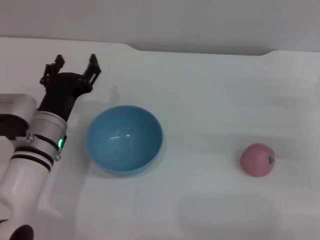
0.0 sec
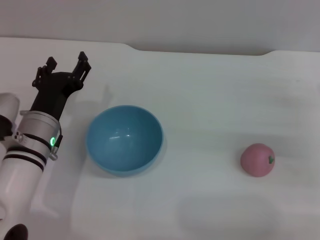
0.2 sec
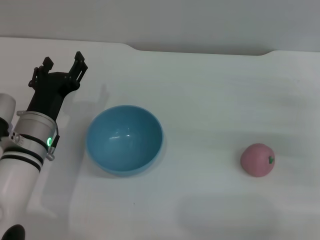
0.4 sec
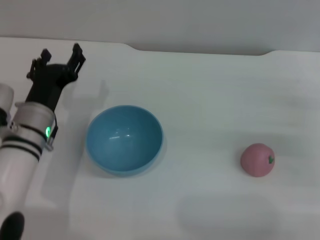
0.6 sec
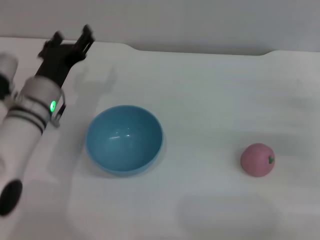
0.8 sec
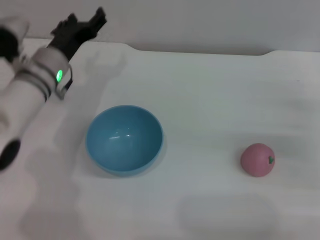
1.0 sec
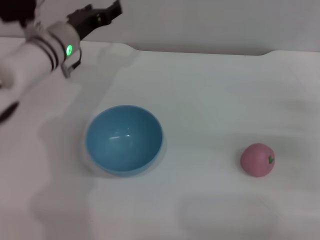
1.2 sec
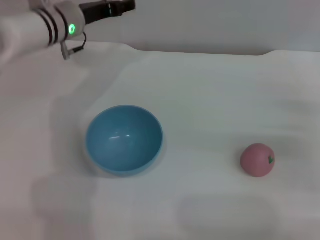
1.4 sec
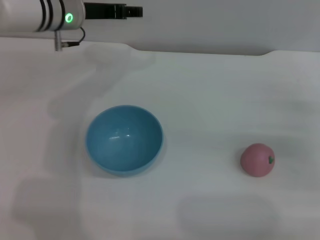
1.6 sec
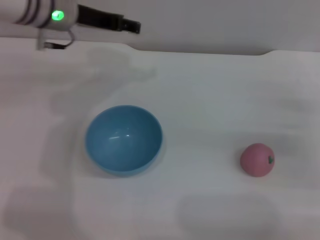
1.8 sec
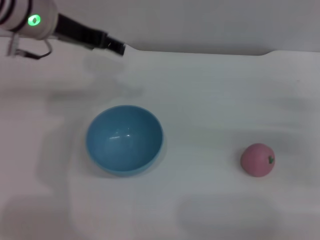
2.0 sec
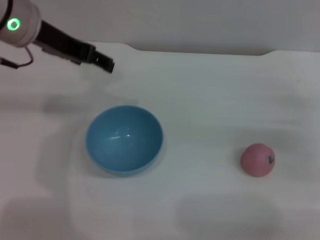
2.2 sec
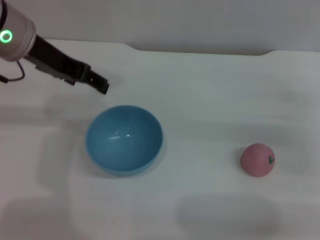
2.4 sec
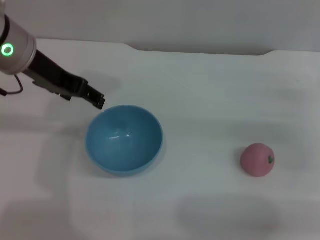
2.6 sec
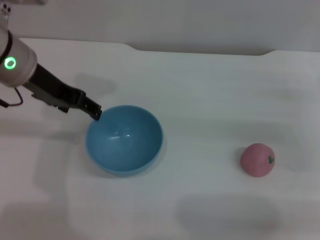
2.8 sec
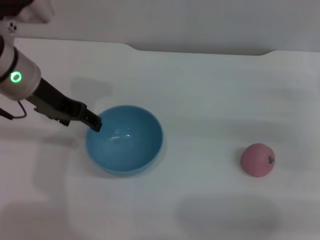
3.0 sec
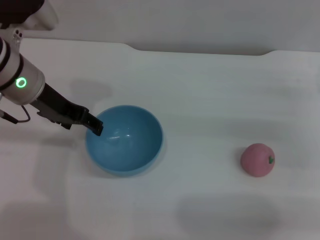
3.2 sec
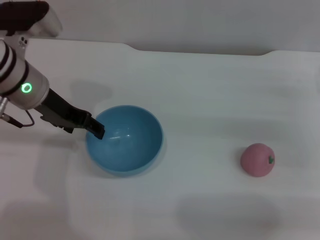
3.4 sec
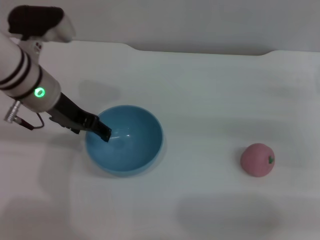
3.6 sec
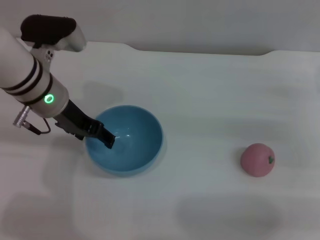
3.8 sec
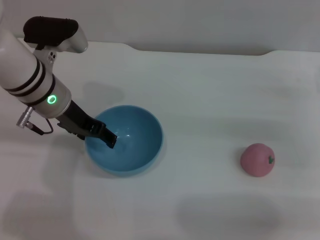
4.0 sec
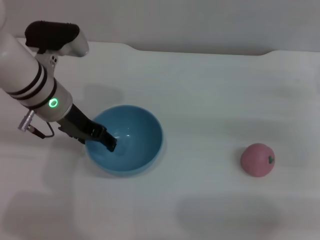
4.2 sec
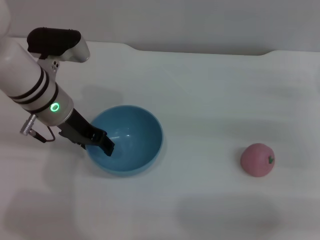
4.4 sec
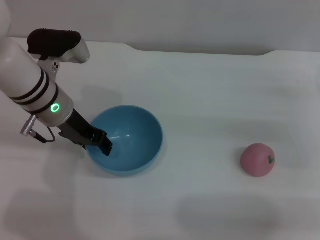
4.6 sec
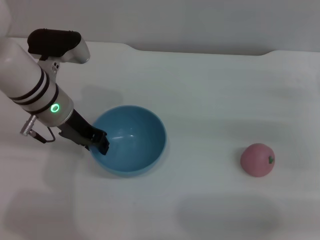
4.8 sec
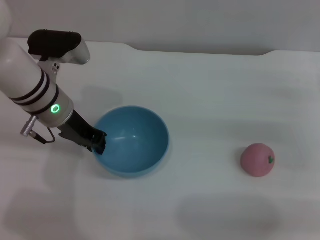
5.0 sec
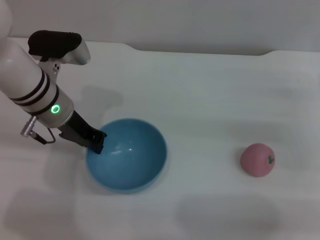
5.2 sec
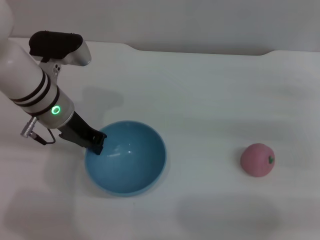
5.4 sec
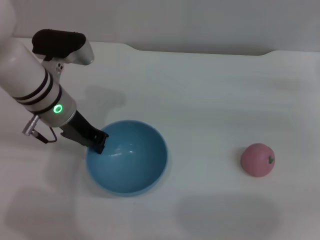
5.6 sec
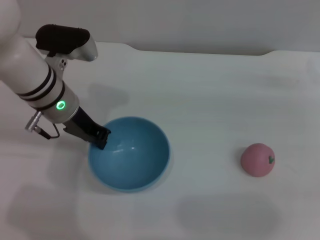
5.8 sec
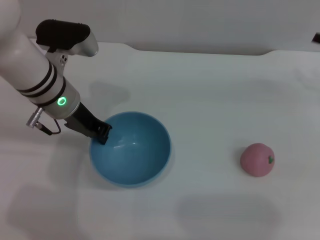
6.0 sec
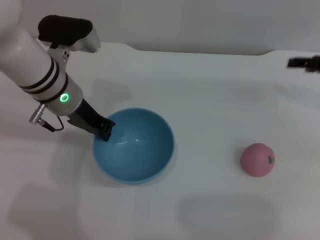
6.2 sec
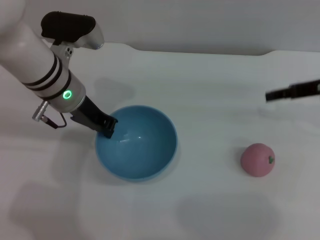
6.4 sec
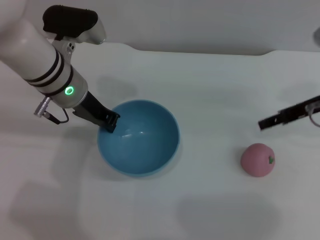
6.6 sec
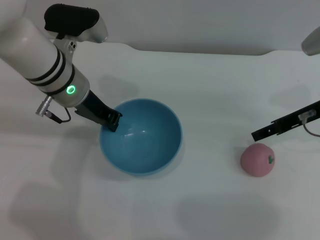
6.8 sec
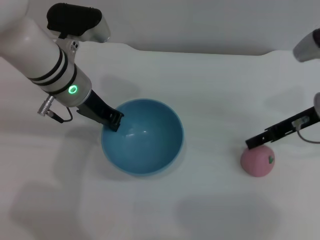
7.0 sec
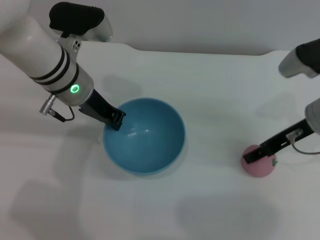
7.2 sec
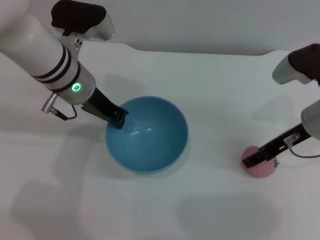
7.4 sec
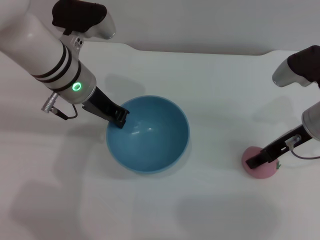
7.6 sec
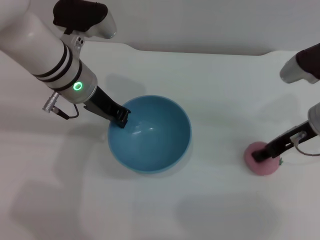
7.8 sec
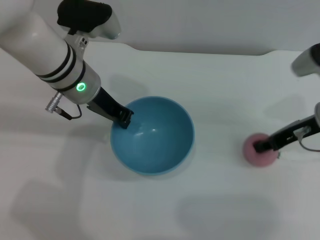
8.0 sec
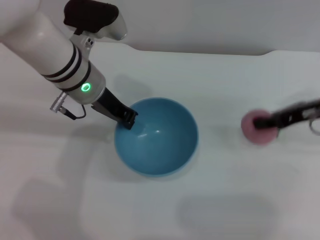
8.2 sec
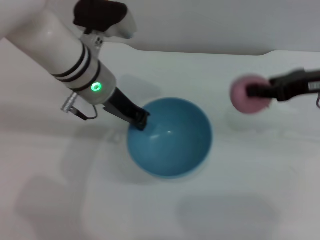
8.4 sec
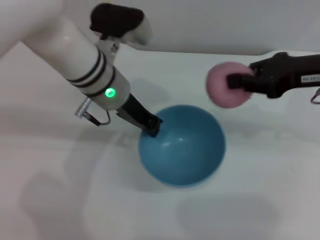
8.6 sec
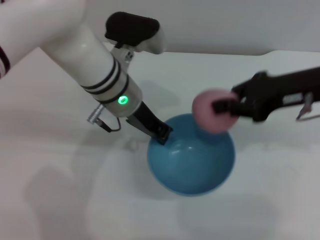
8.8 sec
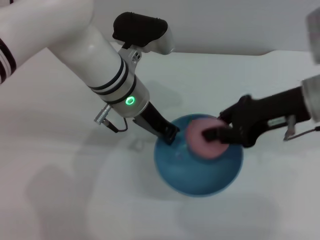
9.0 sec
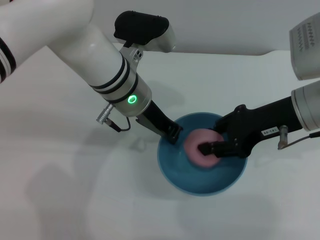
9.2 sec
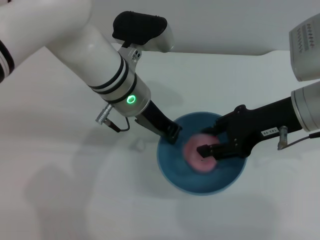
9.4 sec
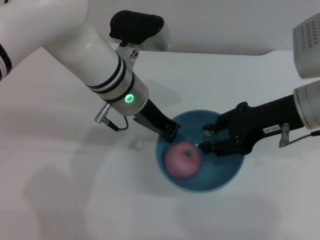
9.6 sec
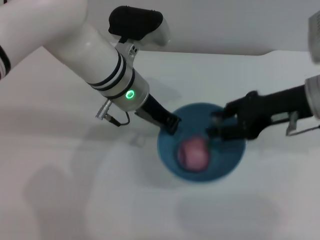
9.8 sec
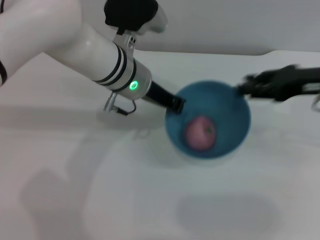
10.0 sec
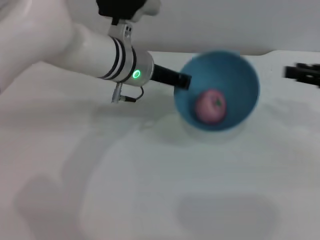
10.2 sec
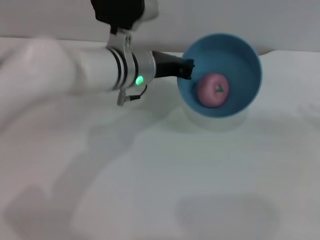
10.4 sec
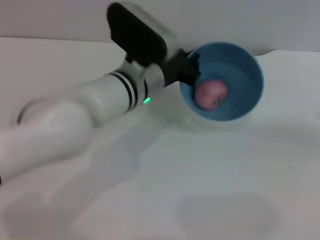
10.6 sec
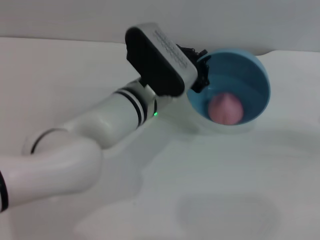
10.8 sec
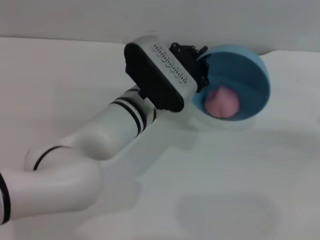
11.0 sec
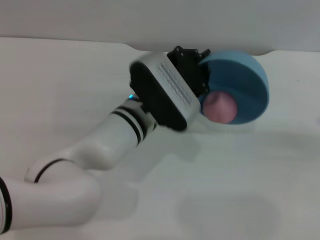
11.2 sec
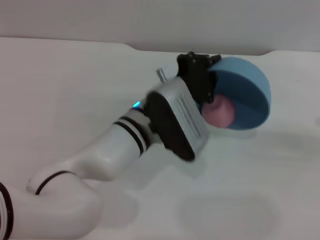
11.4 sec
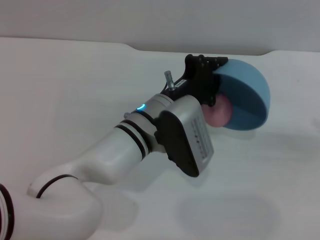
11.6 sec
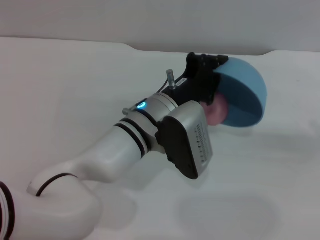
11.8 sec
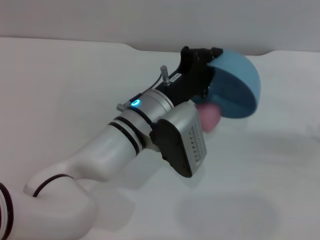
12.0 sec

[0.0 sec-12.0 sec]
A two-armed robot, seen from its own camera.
Task of the whole recording: put the peach into the blue bowl and pour it out repeatedly.
Step, 0.0 sec to 6.6 sec: Pick up the bowl with the left gripper.
Step, 7.0 sec to 8.2 sec: Pick up the peach with the right gripper.
Step, 8.4 sec to 9.6 sec: Place the peach into the bowl.
0.0 sec to 1.6 sec: The left gripper goes roughly 20 cm forward and upward.
1.6 sec to 3.0 sec: The left gripper shifts roughly 10 cm backward.
3.0 sec to 4.4 sec: The left gripper is displaced downward by roughly 5 cm.
4.4 sec to 6.0 sec: The left gripper closes. Meanwhile the right gripper is displaced upward by roughly 5 cm.
6.0 sec to 7.6 sec: The right gripper moves to the left, about 10 cm.
7.6 sec to 9.0 sec: The right gripper shifts approximately 5 cm upward, and closes its fingers; the left gripper is displaced to the right by about 5 cm.
9.0 sec to 10.4 sec: The right gripper travels to the right by about 15 cm, and opens its fingers.
10.4 sec to 12.0 sec: The left gripper goes roughly 10 cm backward; the right gripper changes place by about 5 cm.

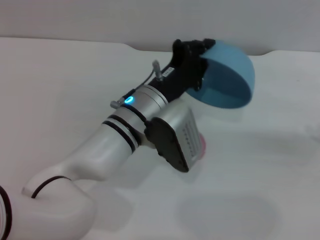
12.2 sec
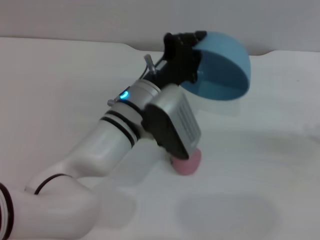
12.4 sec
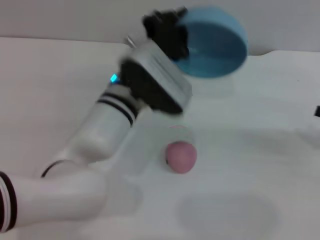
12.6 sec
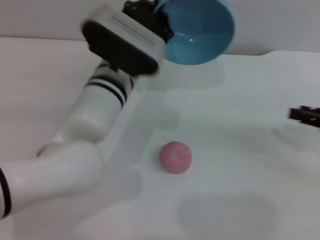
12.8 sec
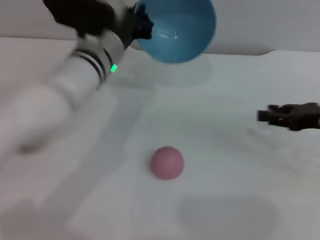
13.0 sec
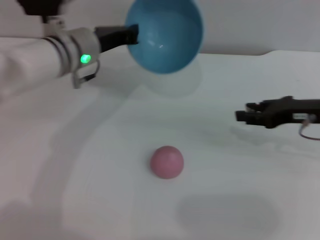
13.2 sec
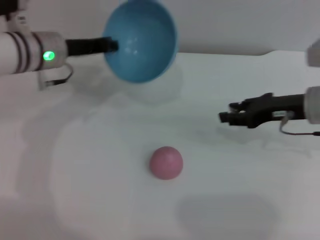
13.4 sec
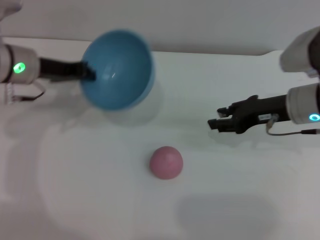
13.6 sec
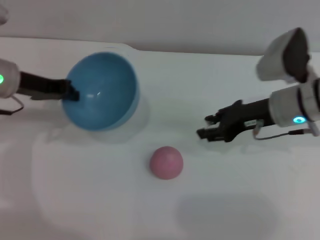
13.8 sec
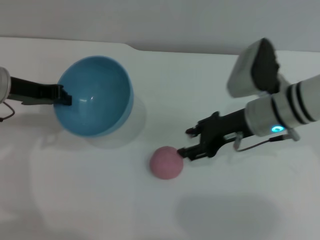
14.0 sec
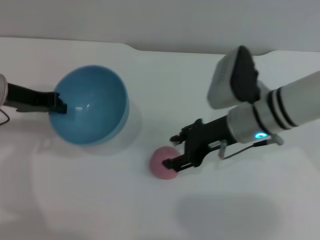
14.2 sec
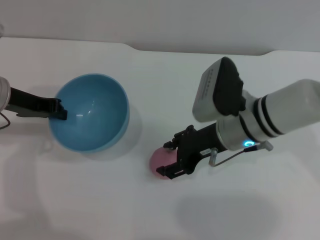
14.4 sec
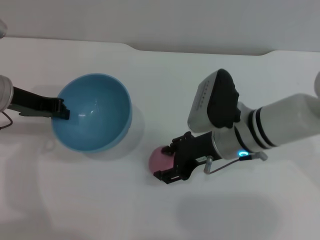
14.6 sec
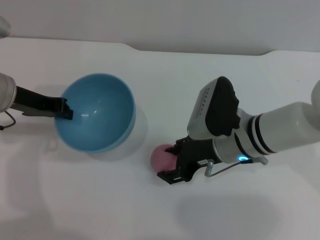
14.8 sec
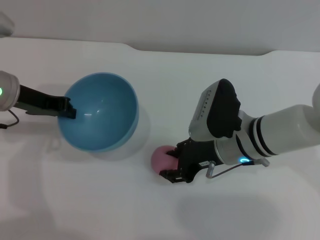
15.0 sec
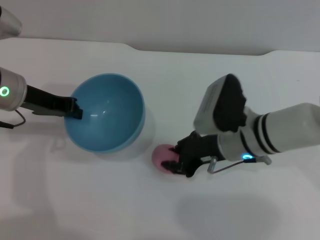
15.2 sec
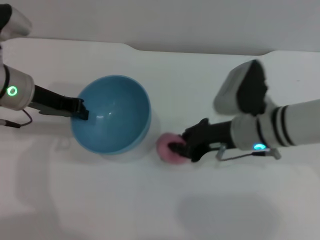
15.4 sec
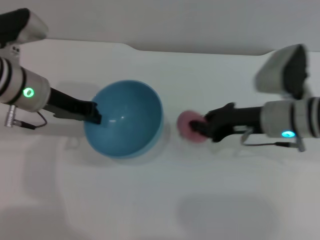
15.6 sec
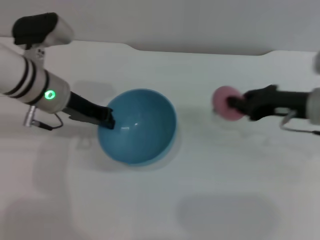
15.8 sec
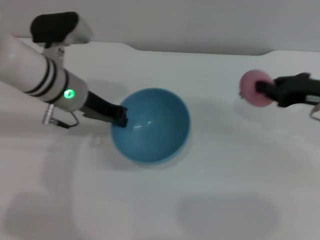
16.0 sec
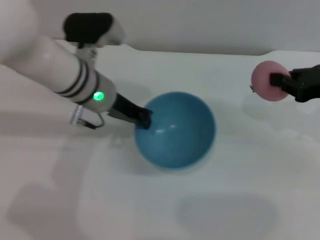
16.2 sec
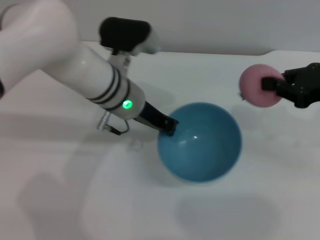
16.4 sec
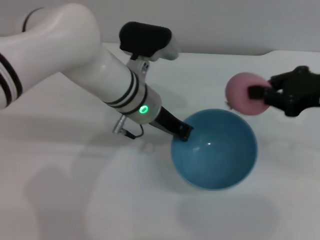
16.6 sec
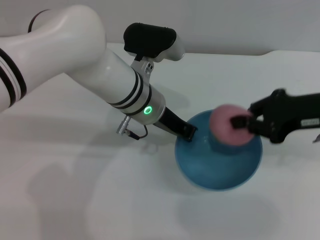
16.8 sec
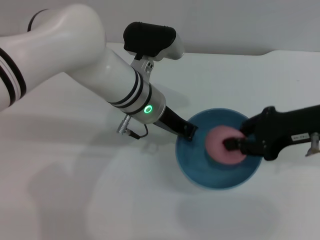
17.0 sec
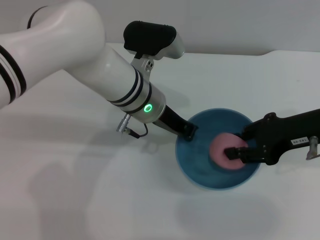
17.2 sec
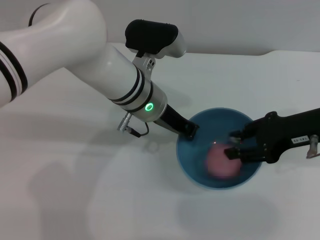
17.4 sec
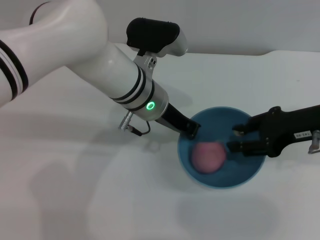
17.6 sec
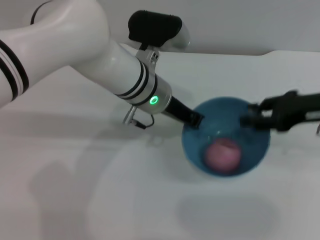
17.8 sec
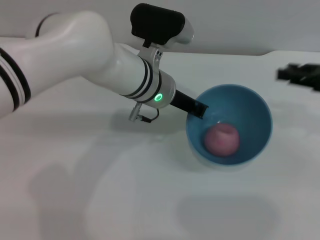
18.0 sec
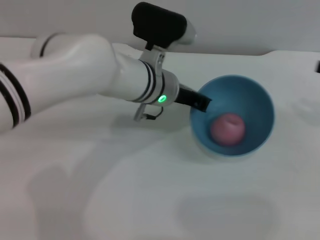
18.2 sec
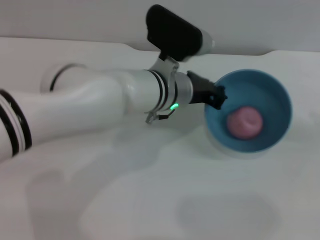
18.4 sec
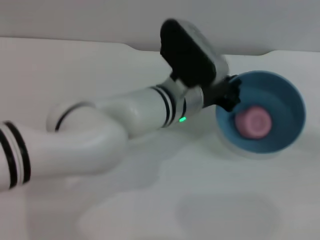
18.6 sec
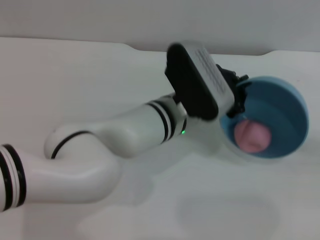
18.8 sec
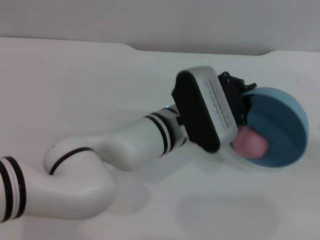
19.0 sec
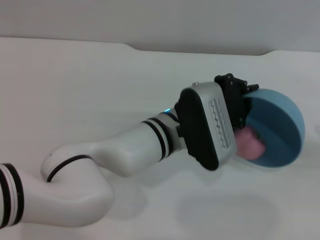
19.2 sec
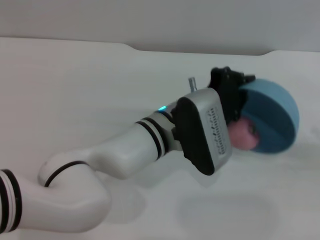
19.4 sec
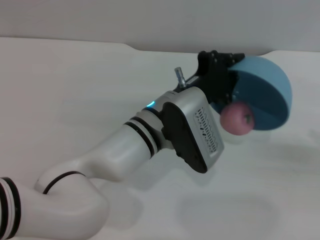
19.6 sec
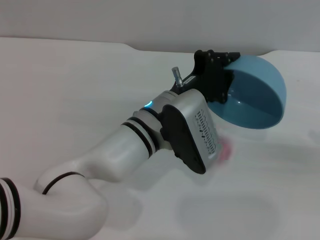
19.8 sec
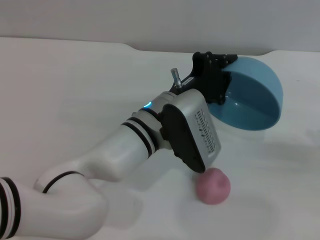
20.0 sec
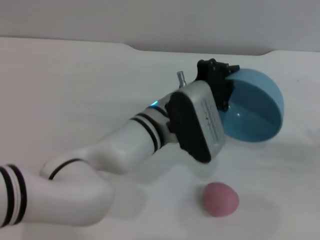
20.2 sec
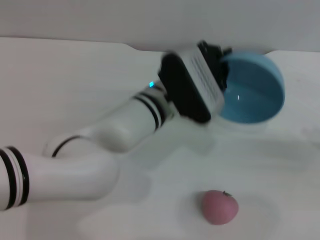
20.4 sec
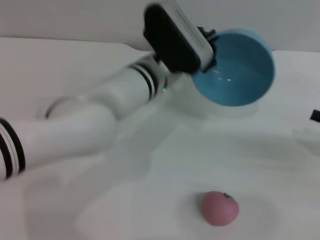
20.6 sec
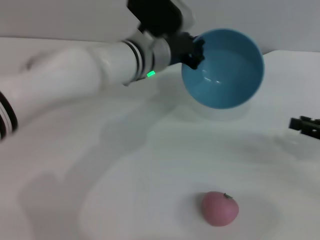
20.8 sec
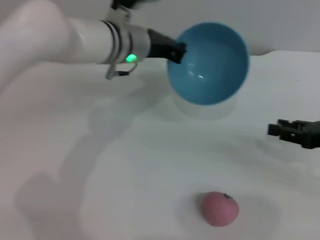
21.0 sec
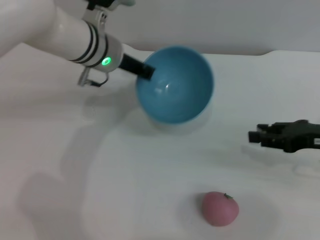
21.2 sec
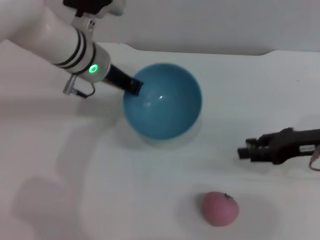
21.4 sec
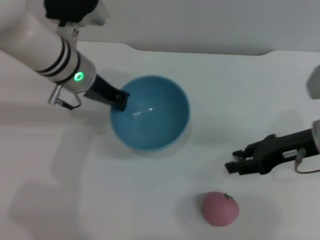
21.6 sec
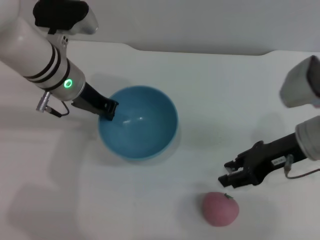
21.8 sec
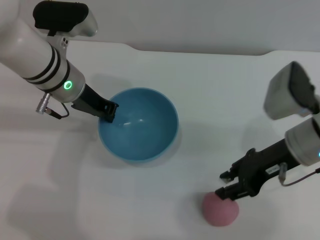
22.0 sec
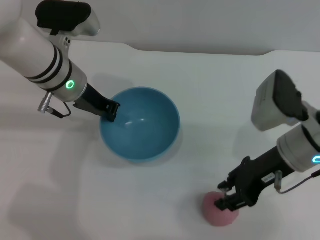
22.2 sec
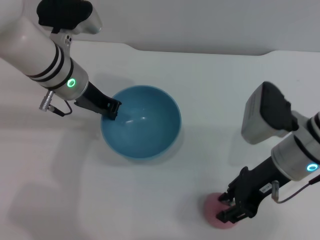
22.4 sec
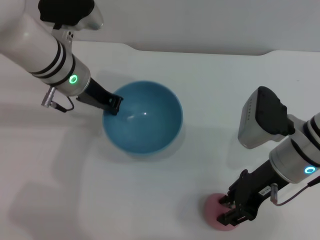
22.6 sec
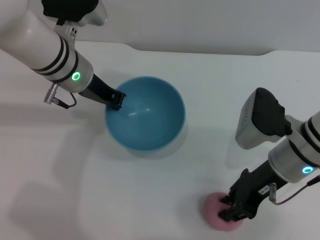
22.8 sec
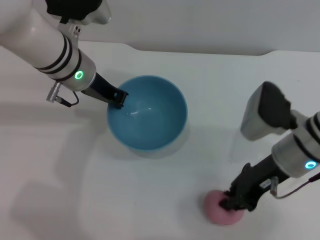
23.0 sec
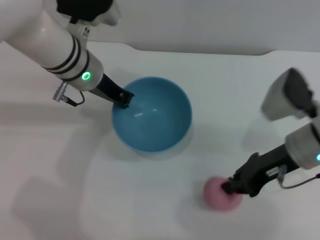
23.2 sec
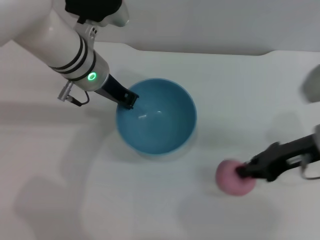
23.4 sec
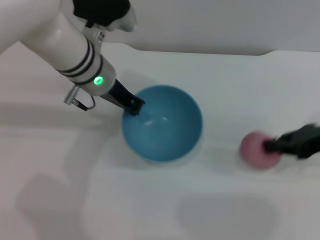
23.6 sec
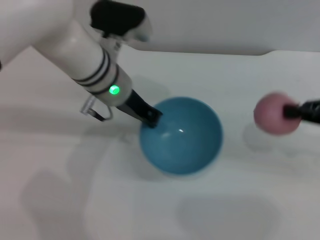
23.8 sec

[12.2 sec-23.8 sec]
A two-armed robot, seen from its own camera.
Task of the whole recording: put the peach into the blue bowl and pour it out repeatedly.
Step, 12.6 sec to 15.6 sec: Pick up the peach with the right gripper.
Step, 15.8 sec to 17.6 sec: Place the peach into the bowl.
Step, 17.8 sec to 20.0 sec: Pour the peach out of bowl.
Step, 20.2 sec to 23.4 sec: Pick up the peach with the right gripper.
12.2 sec to 13.6 sec: Both grippers travel together to the left and forward, some 20 cm.
13.6 sec to 15.0 sec: The right gripper is displaced to the left by approximately 10 cm.
15.0 sec to 16.6 sec: The left gripper travels to the right by some 20 cm; the right gripper is displaced to the right and upward by approximately 20 cm, and closes.
16.6 sec to 18.0 sec: The right gripper opens.
18.0 sec to 19.4 sec: The left gripper heads backward, covering some 10 cm; the right gripper shifts about 15 cm downward, to the right and backward.
19.4 sec to 21.0 sec: The right gripper moves to the left, about 5 cm; the left gripper is displaced forward, to the left and upward by about 15 cm.
21.0 sec to 22.4 sec: The right gripper shifts approximately 15 cm to the left. The left gripper moves to the left, approximately 5 cm.
22.4 sec to 23.8 sec: The right gripper shifts approximately 15 cm to the right, and closes up, while the left gripper shifts roughly 5 cm to the right.
